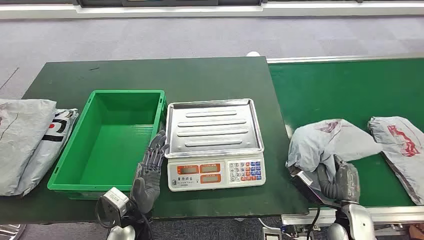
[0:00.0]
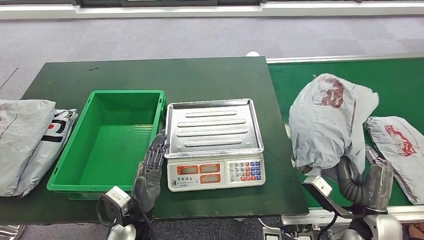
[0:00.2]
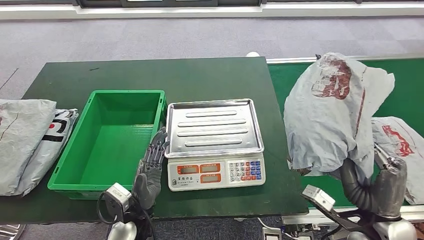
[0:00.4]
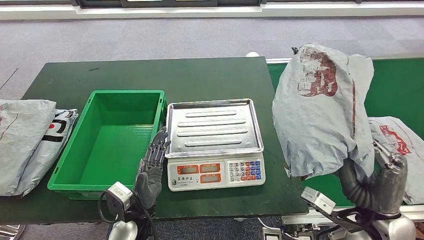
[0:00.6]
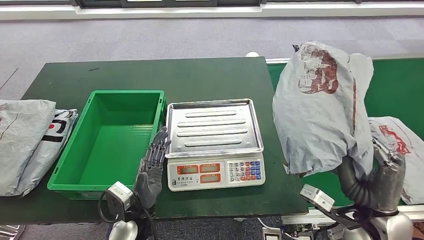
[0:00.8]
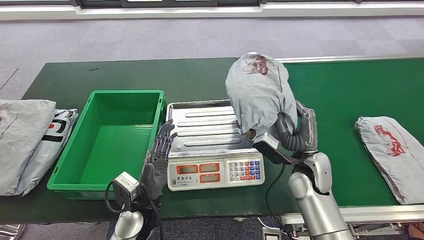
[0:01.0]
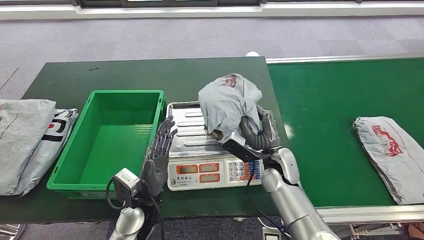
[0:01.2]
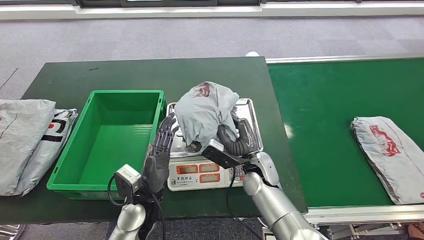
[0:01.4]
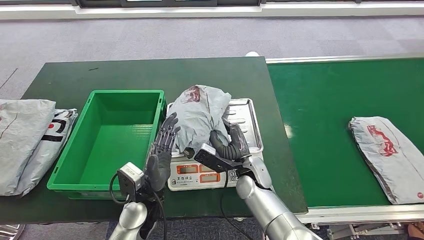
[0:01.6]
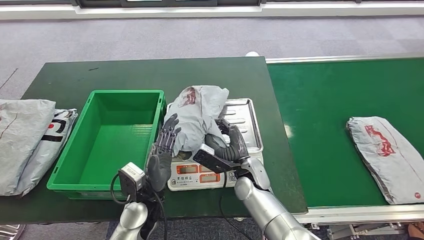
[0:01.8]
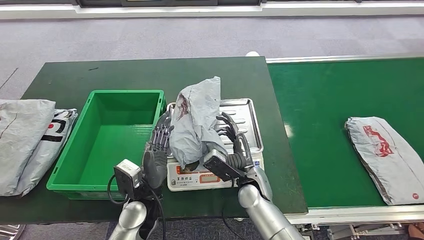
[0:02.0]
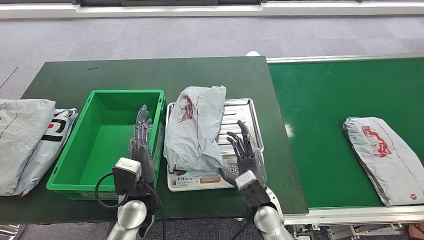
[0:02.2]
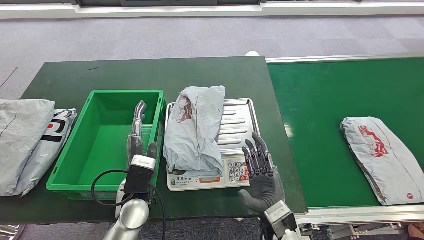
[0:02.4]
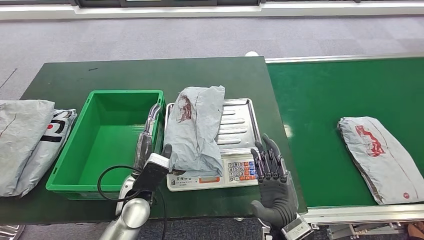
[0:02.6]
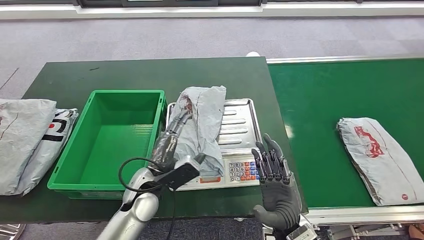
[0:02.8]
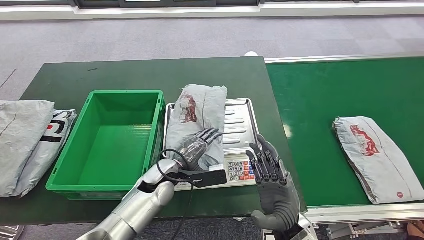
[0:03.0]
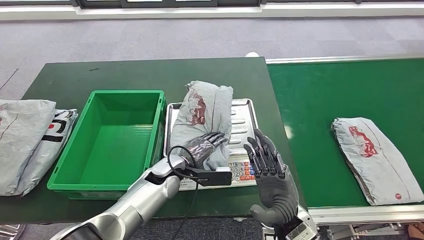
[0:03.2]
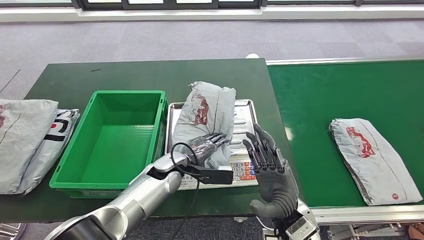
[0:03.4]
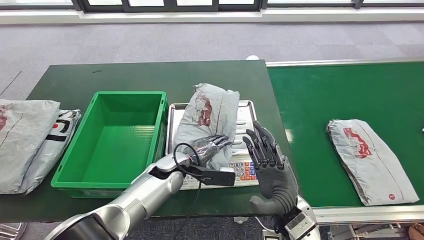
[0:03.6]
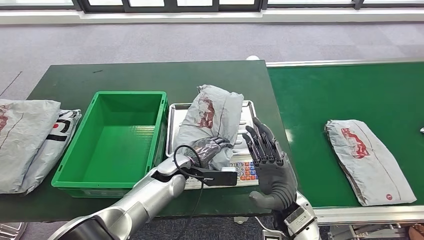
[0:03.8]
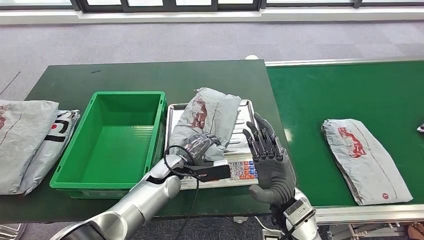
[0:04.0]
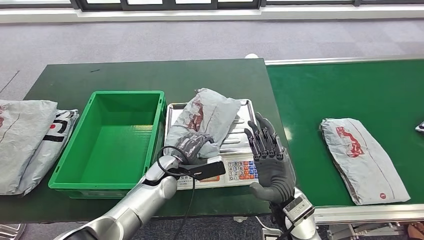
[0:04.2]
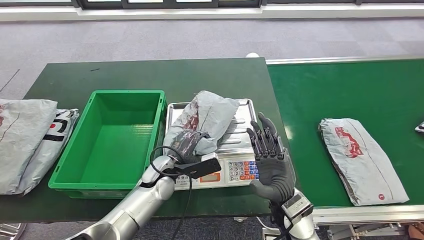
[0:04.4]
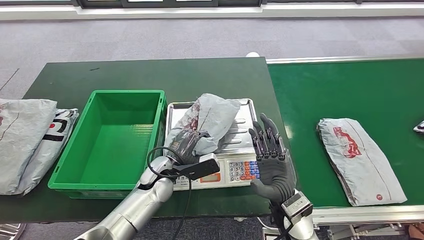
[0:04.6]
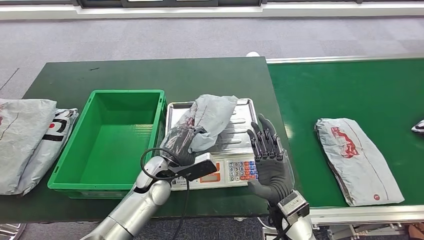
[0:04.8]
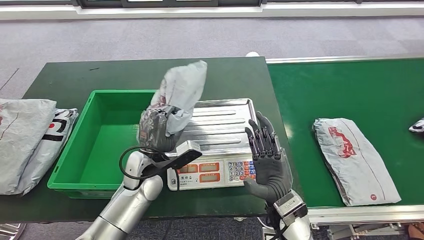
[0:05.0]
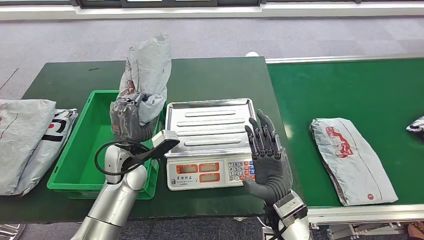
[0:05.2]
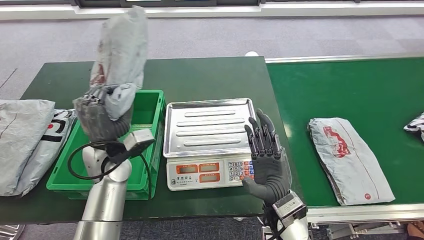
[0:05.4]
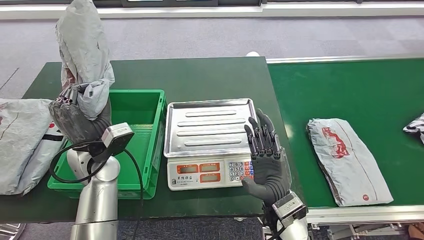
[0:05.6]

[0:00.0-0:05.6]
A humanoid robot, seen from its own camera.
Step, 0:00.0 to 0:01.0: Take the parcel off the conveyor belt.
Step, 0:01.2 to 0:02.8: Place the parcel onto the inbound machine.
Step, 0:03.0 to 0:05.6: Pick up the parcel from the inbound machine.
0:01.4 to 0:02.8: The right hand is displaced backward by roughly 15 cm.

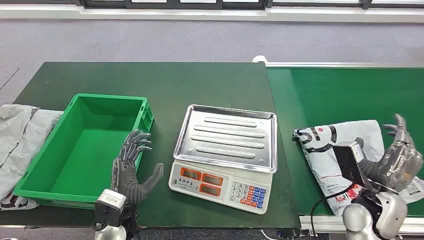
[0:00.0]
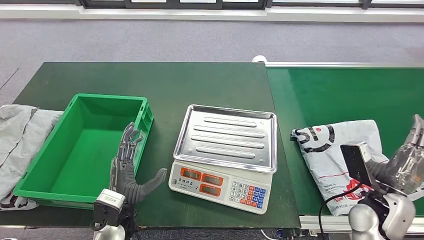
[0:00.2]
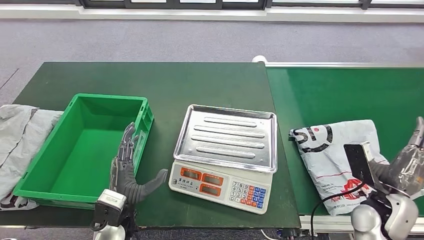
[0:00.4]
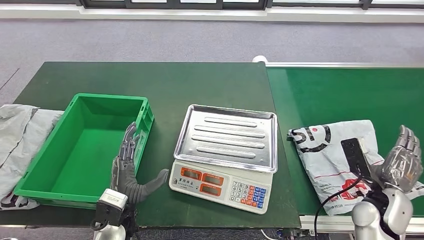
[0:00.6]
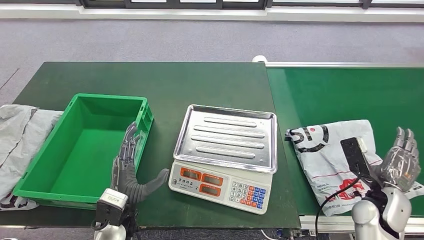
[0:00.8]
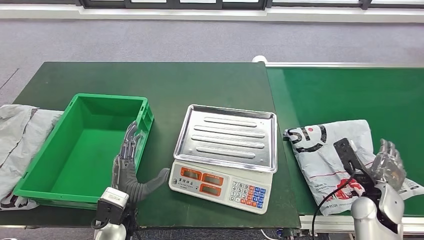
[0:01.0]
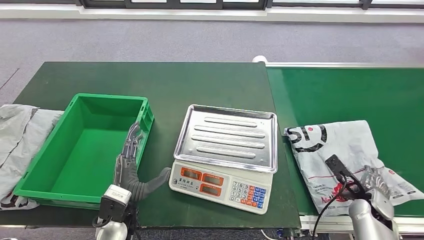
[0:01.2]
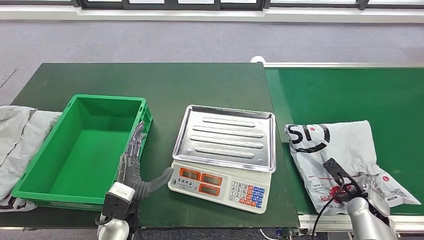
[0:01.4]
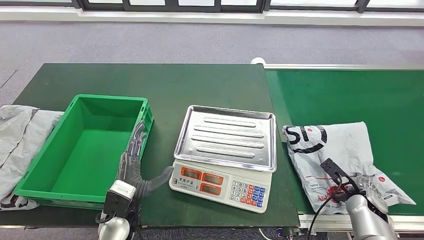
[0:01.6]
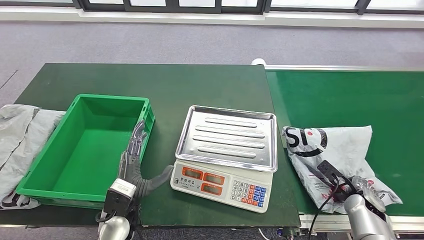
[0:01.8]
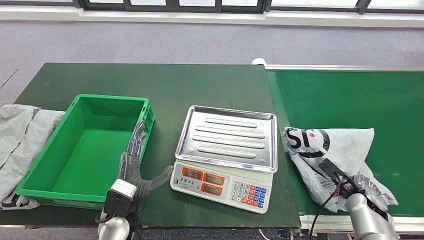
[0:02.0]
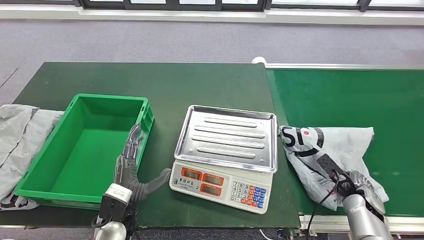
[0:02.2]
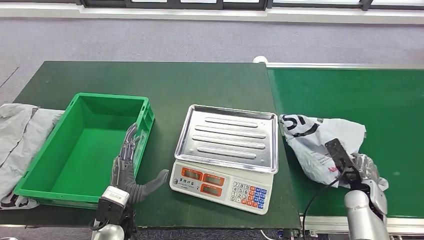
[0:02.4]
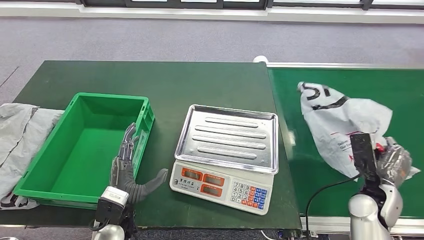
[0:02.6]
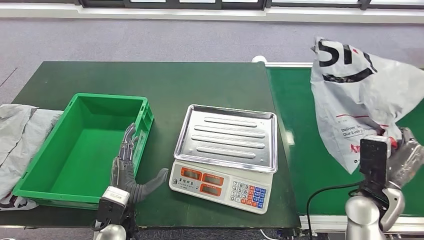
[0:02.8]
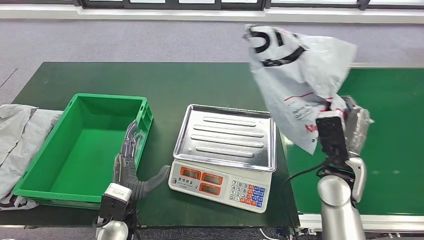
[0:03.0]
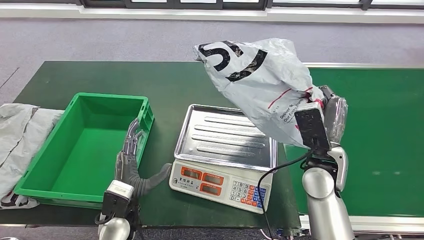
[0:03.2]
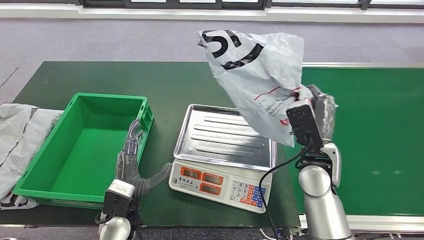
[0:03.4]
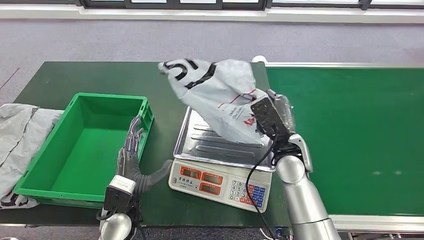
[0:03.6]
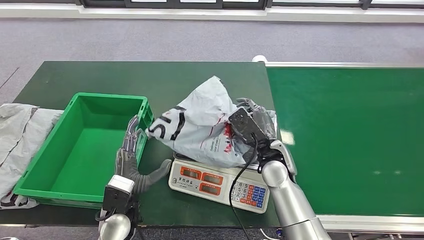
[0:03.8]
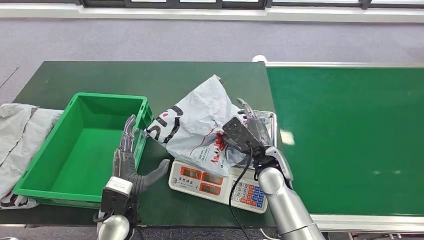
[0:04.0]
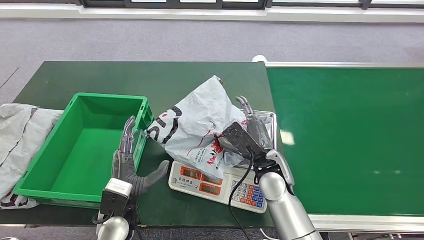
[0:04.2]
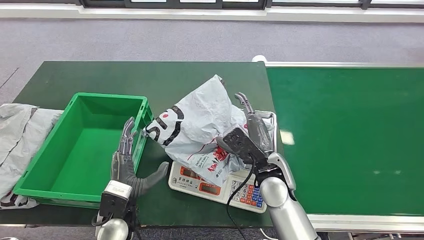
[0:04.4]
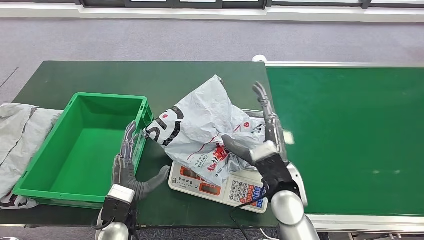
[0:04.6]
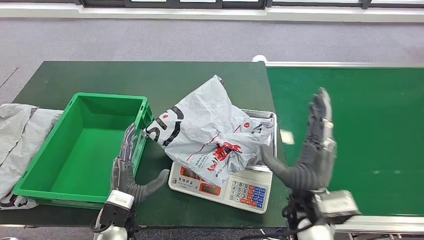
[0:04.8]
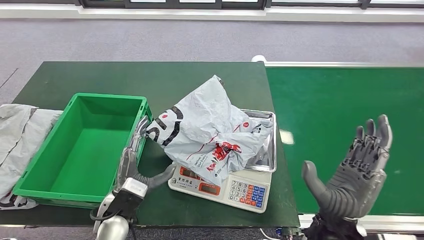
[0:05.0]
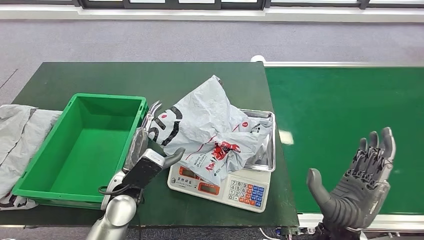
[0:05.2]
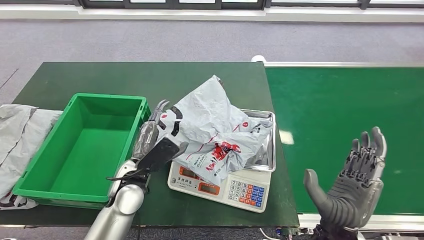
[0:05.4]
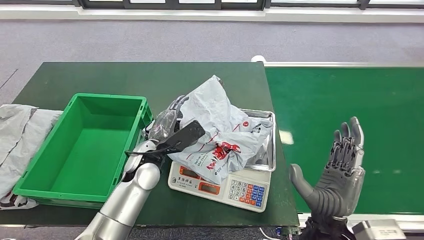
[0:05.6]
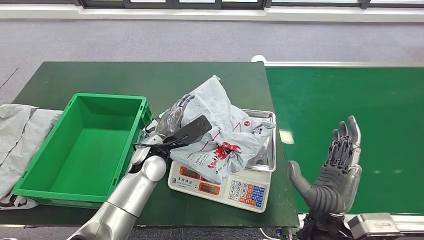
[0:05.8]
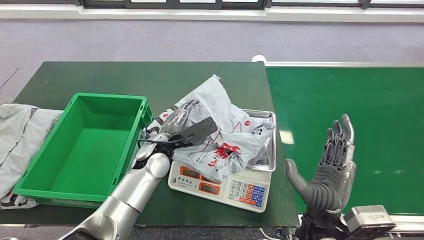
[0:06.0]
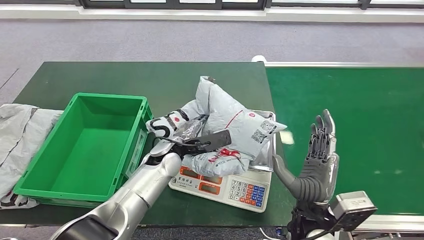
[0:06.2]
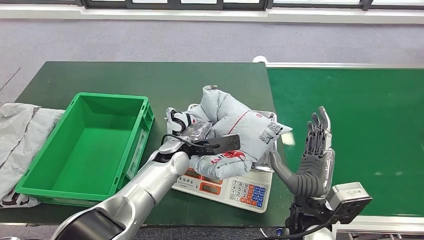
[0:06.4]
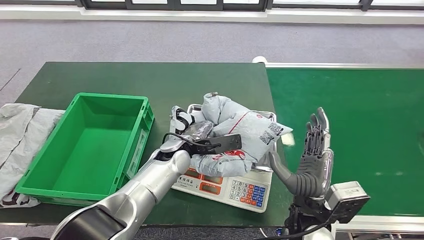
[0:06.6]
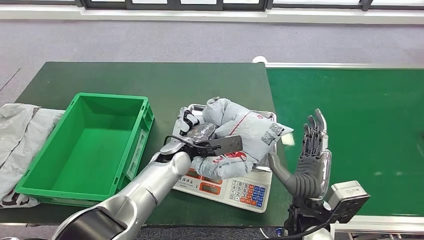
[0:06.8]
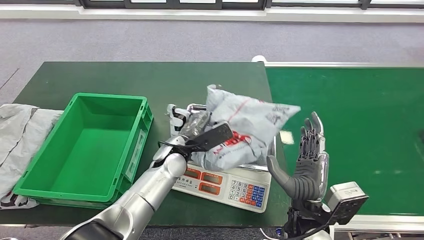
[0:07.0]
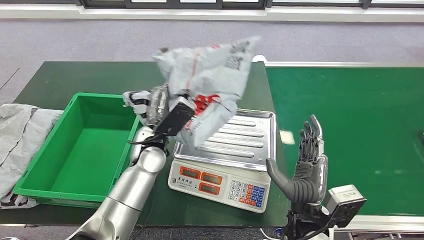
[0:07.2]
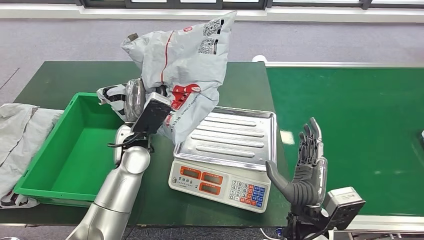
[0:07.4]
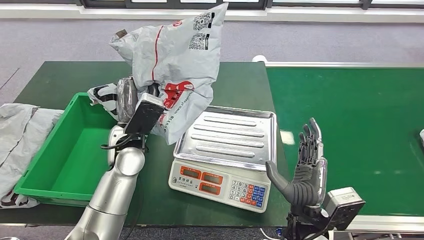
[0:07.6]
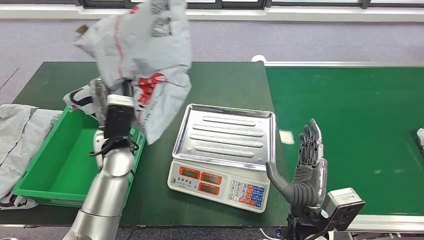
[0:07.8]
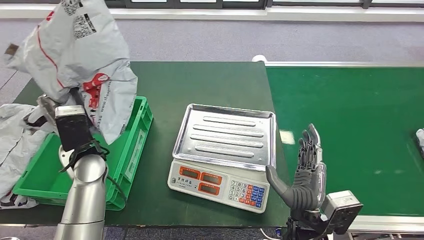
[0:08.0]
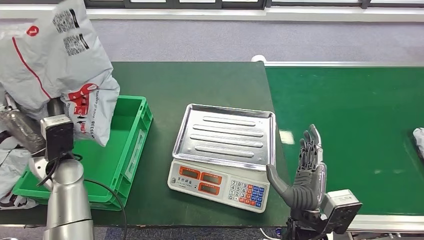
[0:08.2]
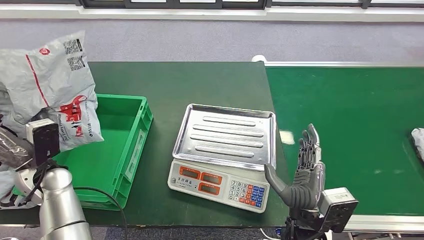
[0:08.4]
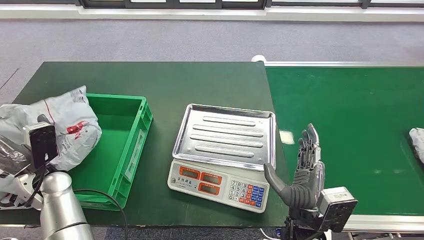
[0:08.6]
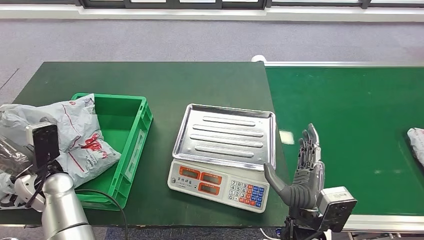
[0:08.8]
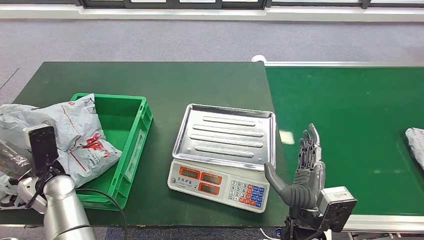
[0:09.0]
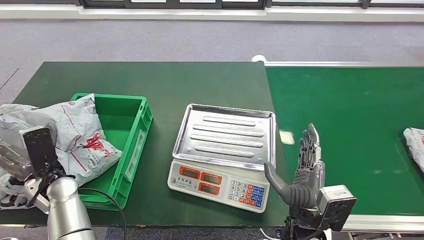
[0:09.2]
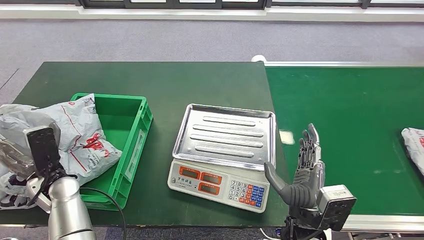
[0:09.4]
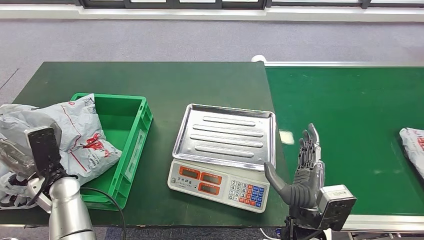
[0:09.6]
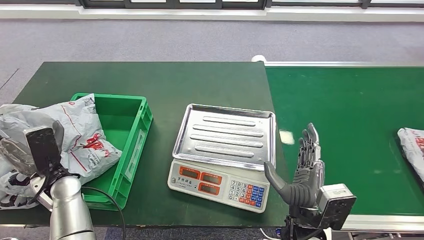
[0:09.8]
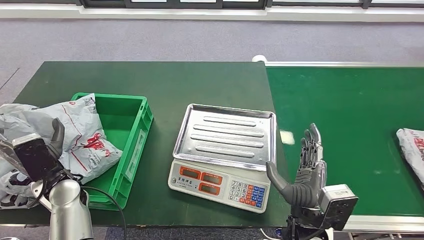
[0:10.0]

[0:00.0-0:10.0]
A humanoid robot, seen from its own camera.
Step, 0:00.0 to 0:03.2: Take the parcel off the conveyor belt.
Step, 0:03.4 to 0:05.0: Place the parcel onto the inbound machine.
Step, 0:05.4 to 0:07.8: Pick up the parcel from the inbound machine.
Step, 0:08.0 to 0:10.0: Put the parcel inside the courier box.
0:04.2 to 0:05.8: The right hand travels backward and to the right by approximately 15 cm; the left hand is displaced forward by some 15 cm.
